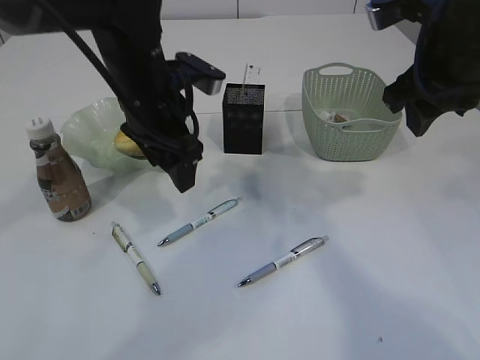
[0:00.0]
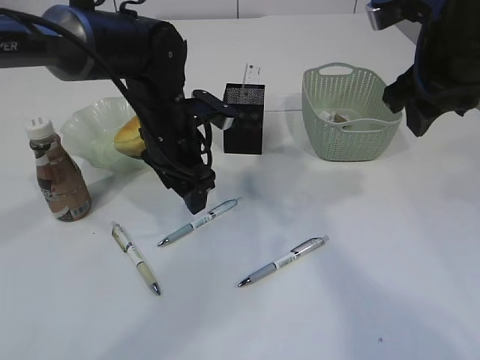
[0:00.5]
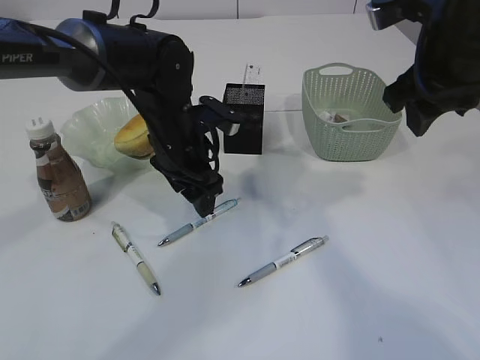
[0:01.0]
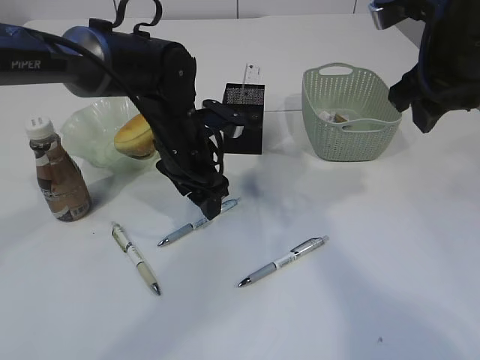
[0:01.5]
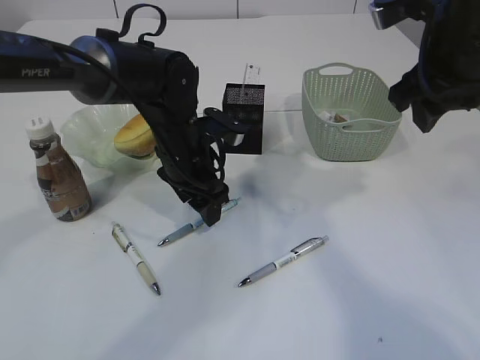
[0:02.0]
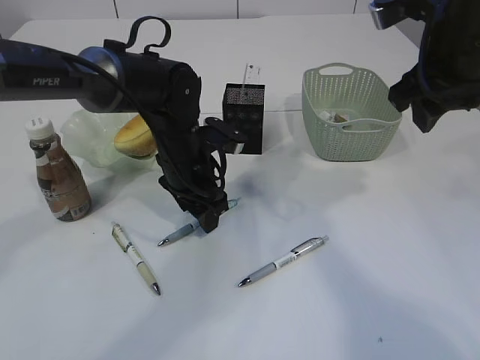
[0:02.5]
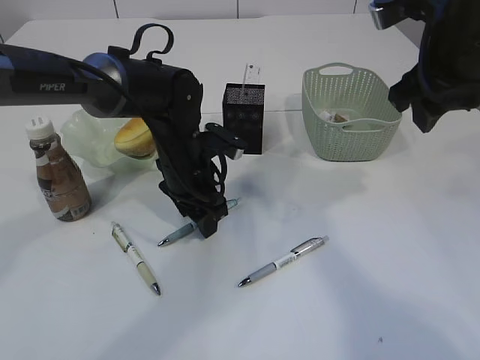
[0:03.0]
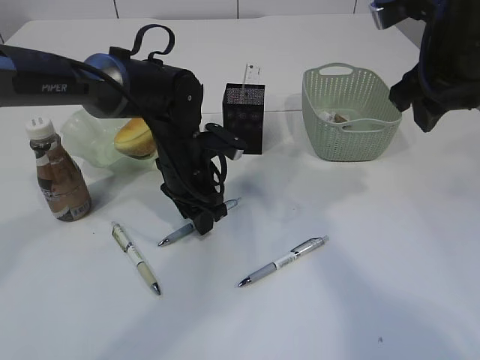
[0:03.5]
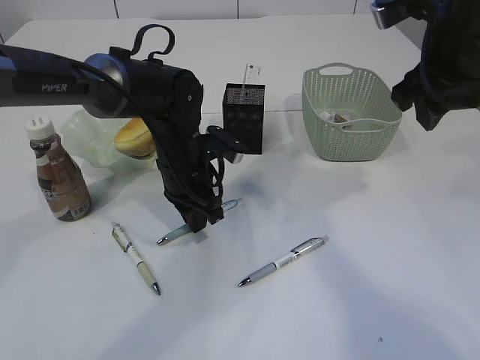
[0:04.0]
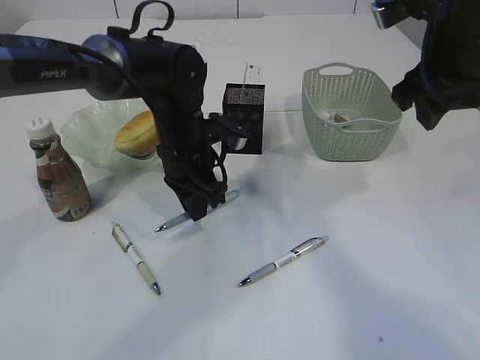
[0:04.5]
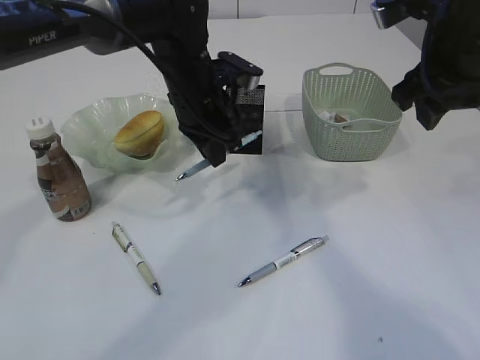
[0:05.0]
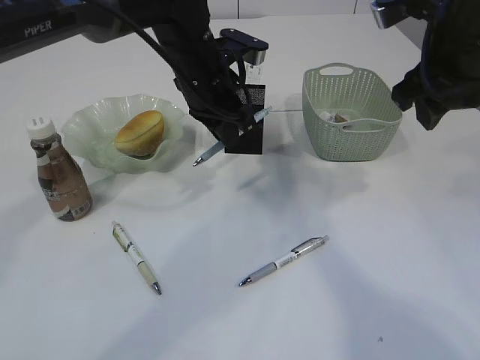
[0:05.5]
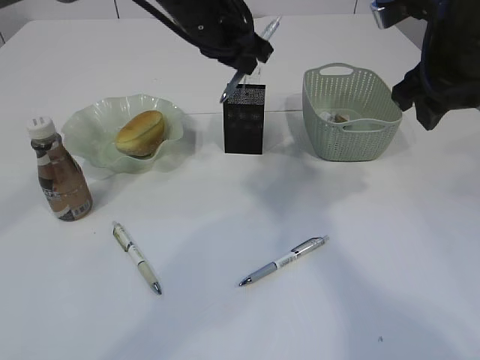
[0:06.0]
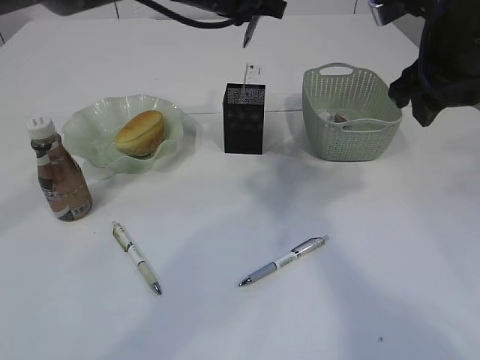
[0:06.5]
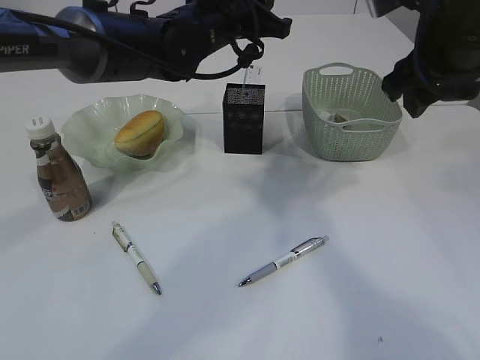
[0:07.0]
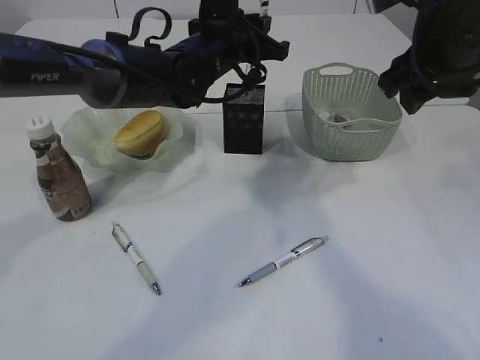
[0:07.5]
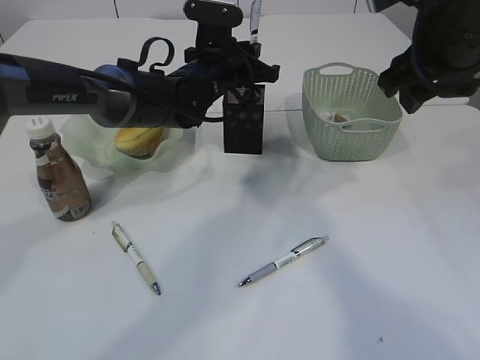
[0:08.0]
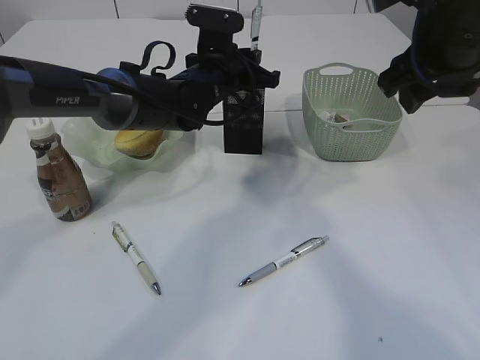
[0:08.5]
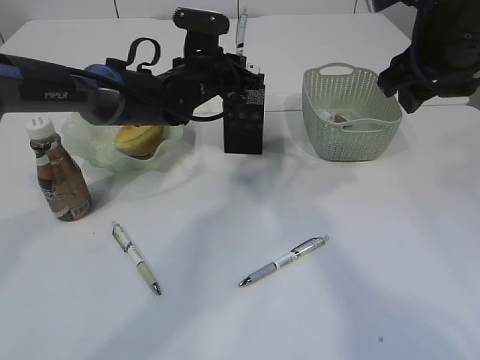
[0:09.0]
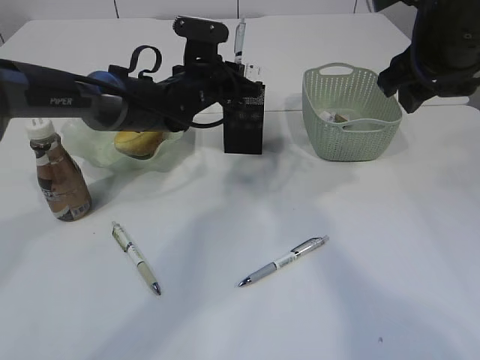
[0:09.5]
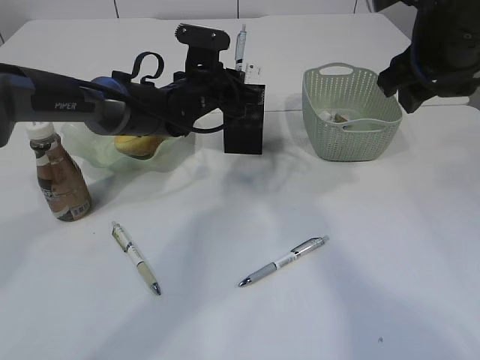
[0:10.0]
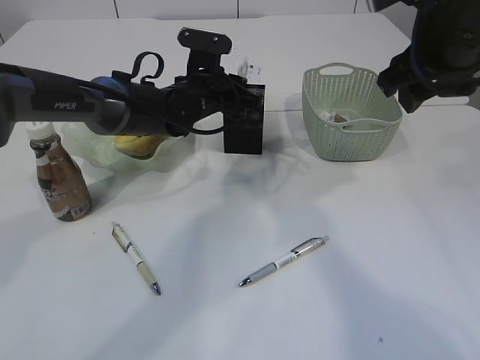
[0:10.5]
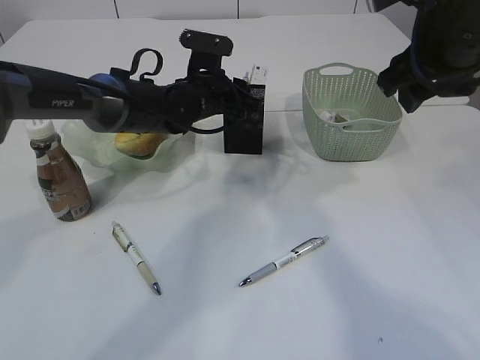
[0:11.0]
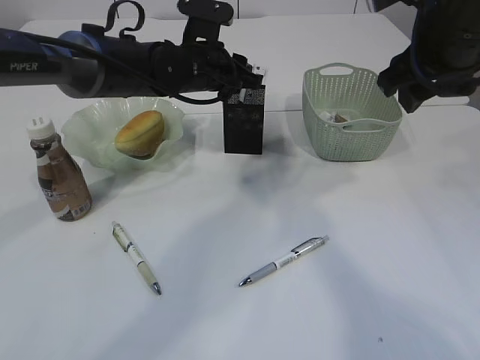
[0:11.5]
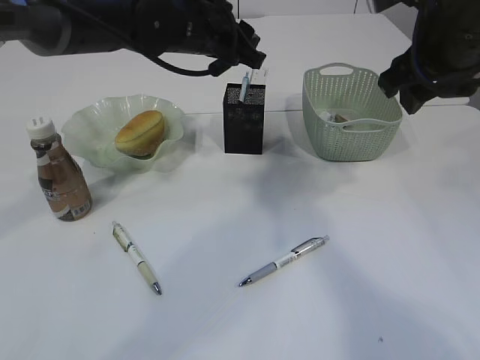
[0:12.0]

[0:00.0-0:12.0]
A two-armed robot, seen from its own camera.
Step, 0.0 to 4.5 s: Pick up the pen with left arm.
0.0 to 2.0 s: The left gripper travels downward by about 10 cm.
2.0 to 4.0 s: The left gripper closes its fingers.
4.0 to 6.0 s: The left gripper is displaced upward by roughly 15 cm.
6.0 to 8.0 s: The left gripper is displaced downward by about 10 cm.
8.0 to 10.0 s: The grippers move only a little.
10.0 to 12.0 s: The left gripper goes approximately 10 cm upward, and opens its fingers.

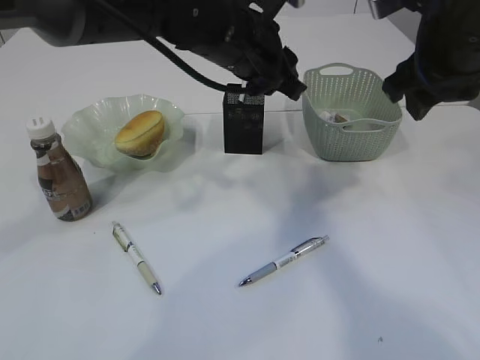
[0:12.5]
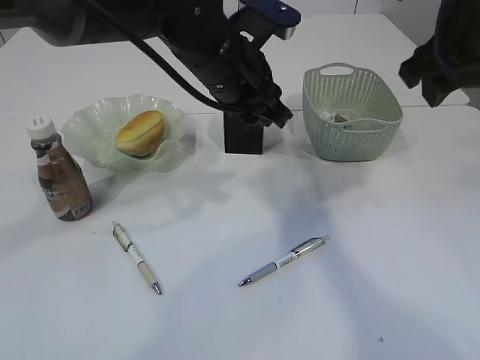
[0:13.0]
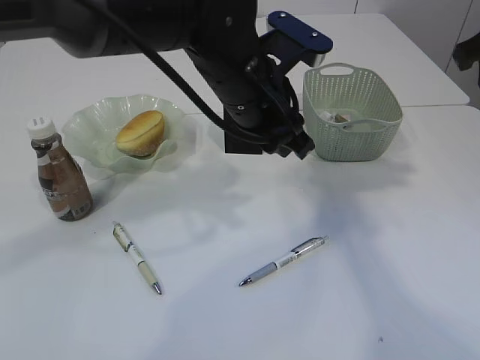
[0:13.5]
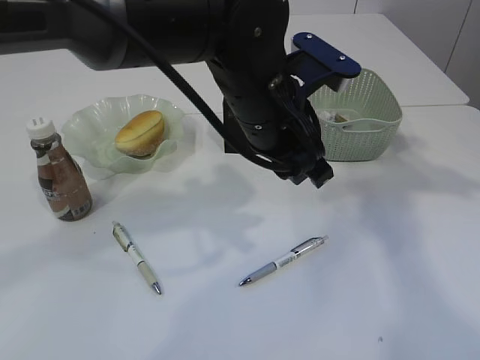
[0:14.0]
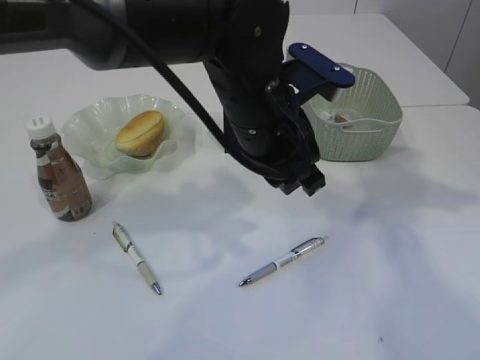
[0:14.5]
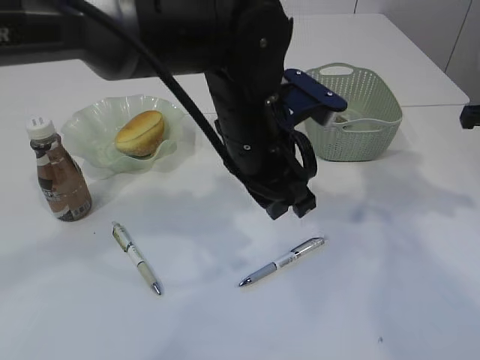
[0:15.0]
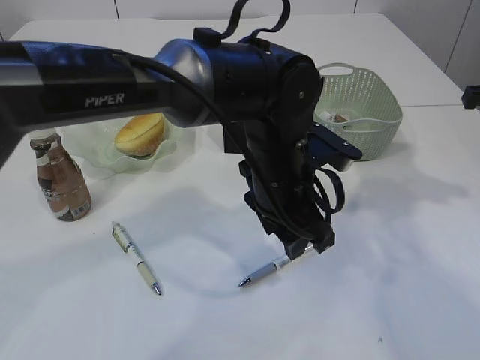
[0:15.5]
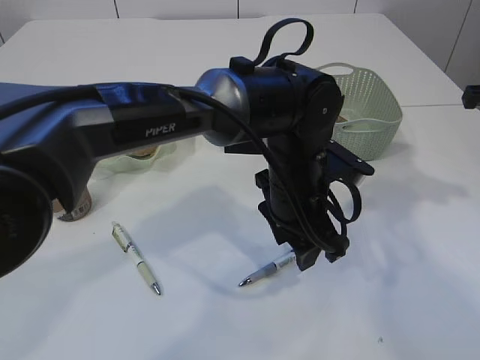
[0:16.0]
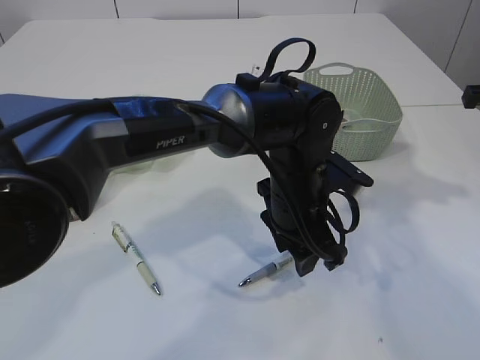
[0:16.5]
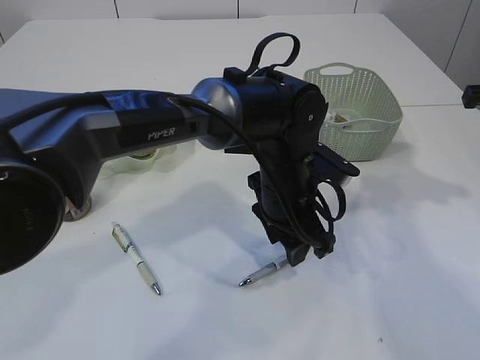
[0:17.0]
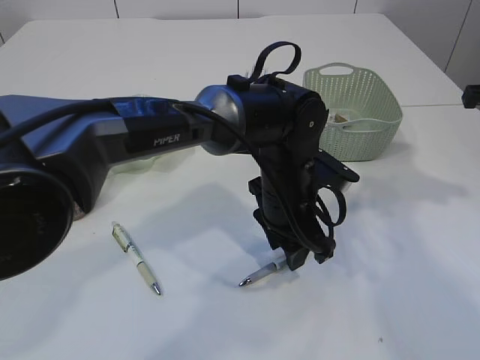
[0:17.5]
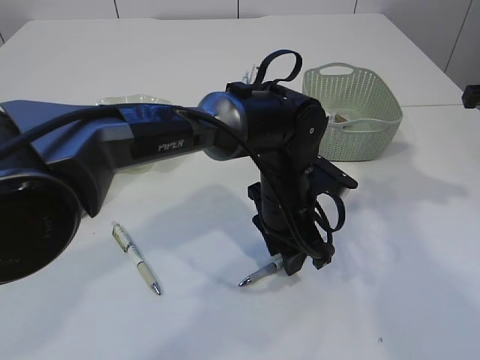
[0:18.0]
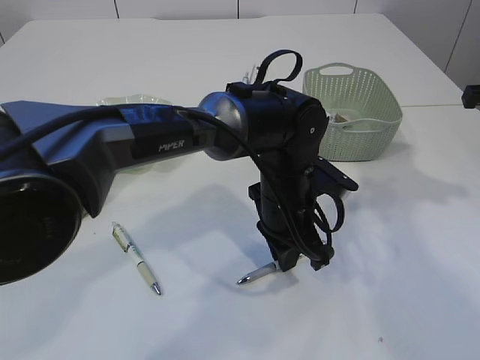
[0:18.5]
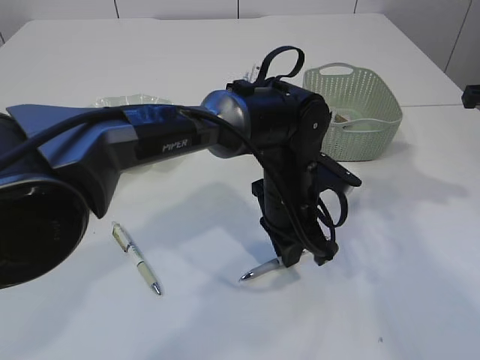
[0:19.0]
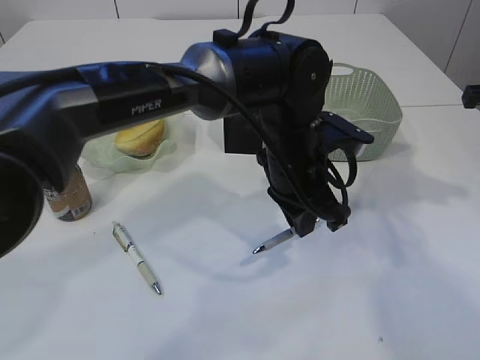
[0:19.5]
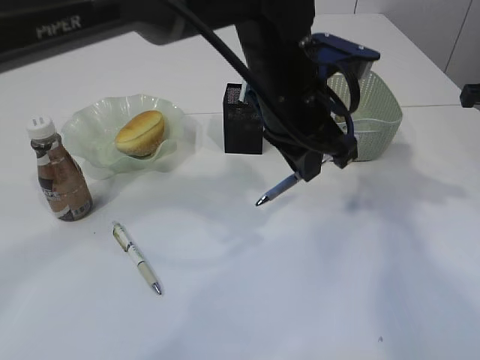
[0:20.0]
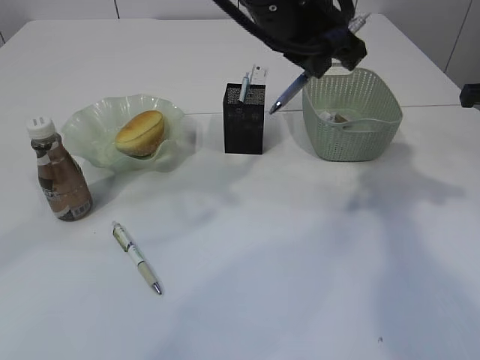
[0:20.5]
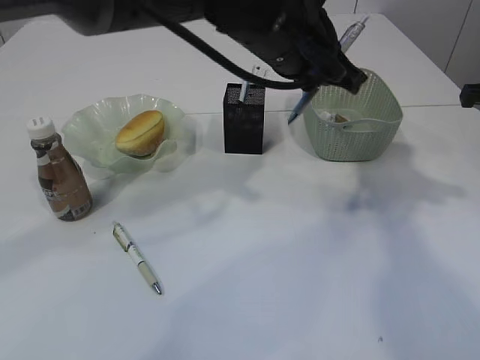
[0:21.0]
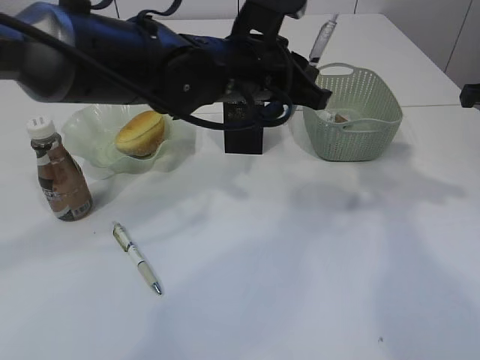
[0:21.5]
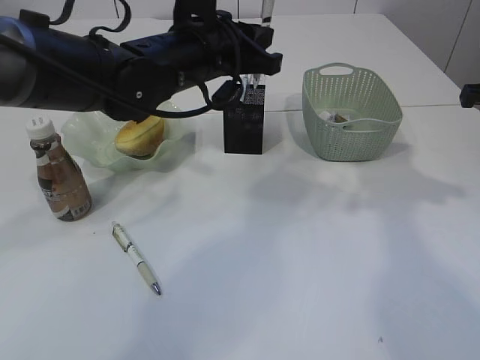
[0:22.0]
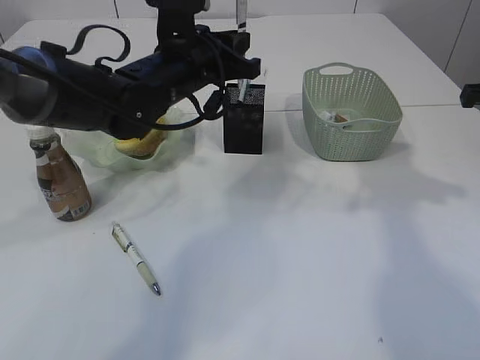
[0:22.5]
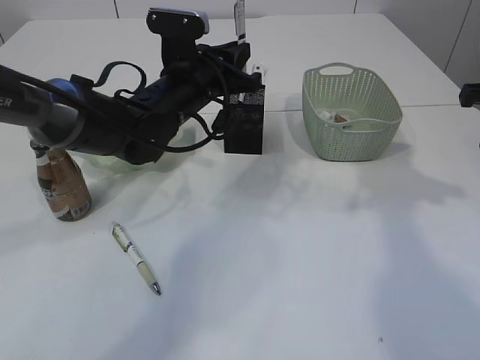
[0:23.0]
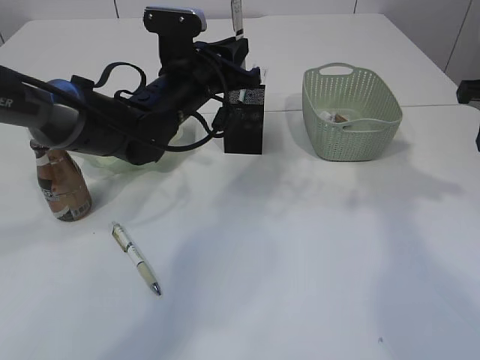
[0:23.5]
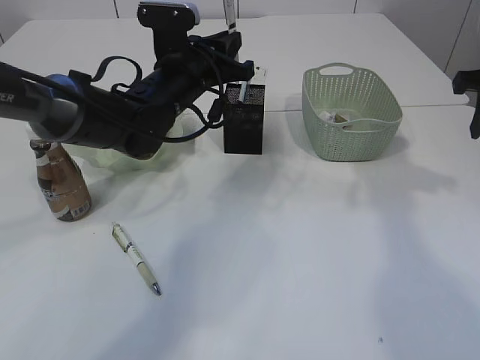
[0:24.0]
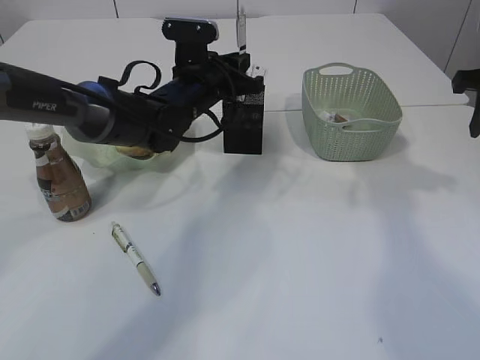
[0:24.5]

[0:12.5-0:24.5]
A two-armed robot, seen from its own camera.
Step, 12.5 to 20.0 s: Pick up the pen with left arm.
12.5 to 14.5 s: The left gripper goes roughly 10 cm backward; the right gripper goes about 15 cm to the right.
14.5 to 16.5 s: The left gripper shifts some 10 cm downward.
16.5 to 18.5 s: The left gripper closes up.
18.5 to 20.5 s: The left gripper goes some 25 cm upward.
20.5 to 22.5 s: The left gripper shifts approximately 15 cm downward, to the left and forward.
22.5 to 24.5 s: The left gripper shifts some 10 cm downward and forward.

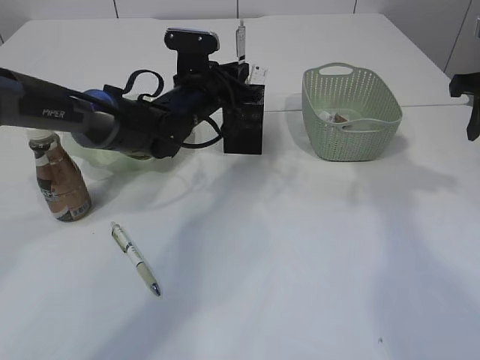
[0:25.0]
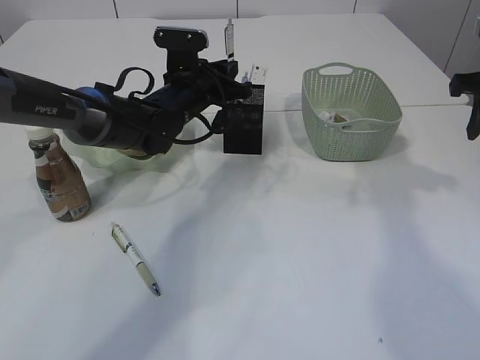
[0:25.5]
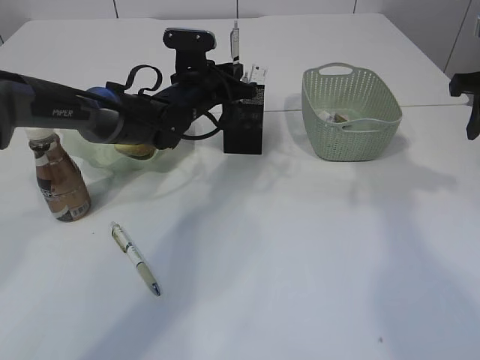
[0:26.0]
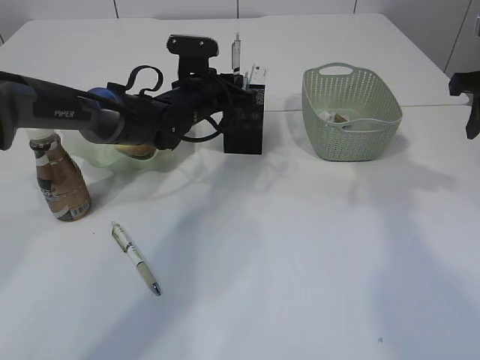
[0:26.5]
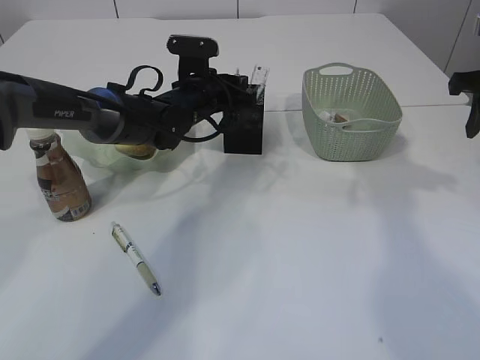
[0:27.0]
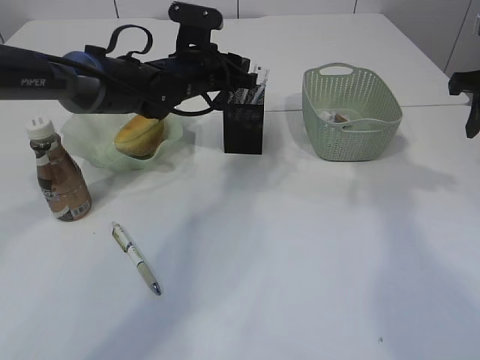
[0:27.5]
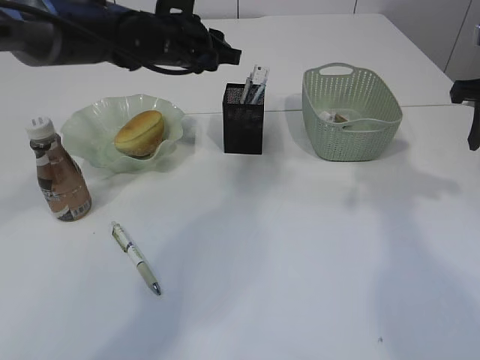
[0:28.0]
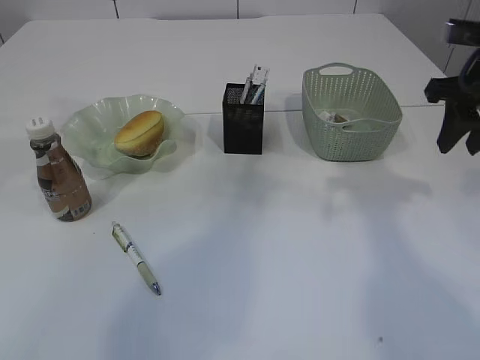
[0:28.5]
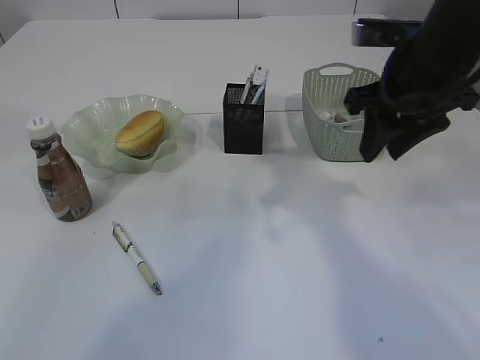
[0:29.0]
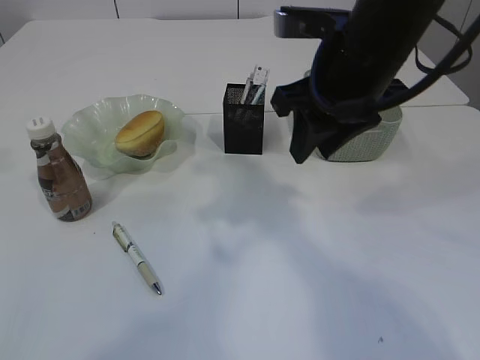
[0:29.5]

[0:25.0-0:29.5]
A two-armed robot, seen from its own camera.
Step, 25.0 to 28.0 s: Place the pen into the pen holder.
25.0 to 27.0 s: The left gripper opens its fingers.
27.0 to 29.5 s: The left gripper is displaced upward, backward and to the left by roughly 40 cm; the right gripper travels to the left by approximately 20 cm.
